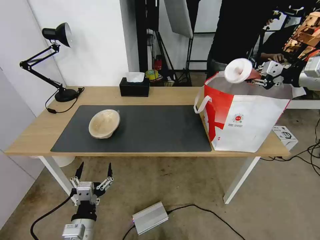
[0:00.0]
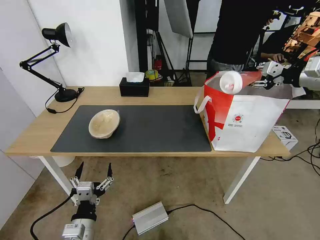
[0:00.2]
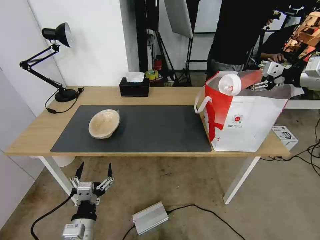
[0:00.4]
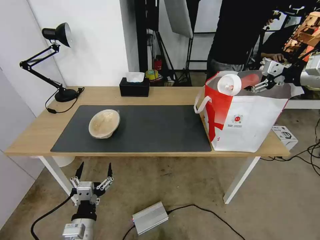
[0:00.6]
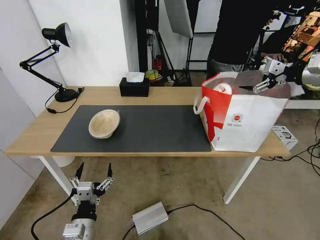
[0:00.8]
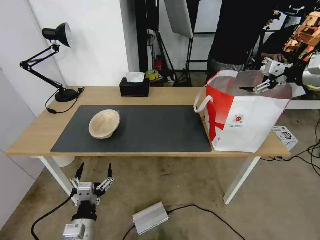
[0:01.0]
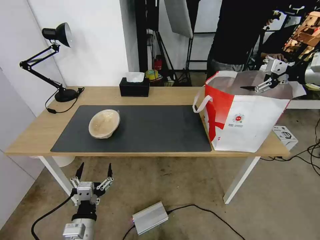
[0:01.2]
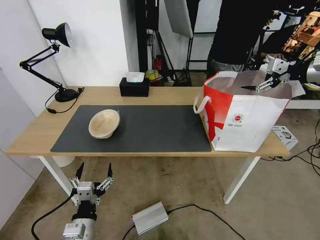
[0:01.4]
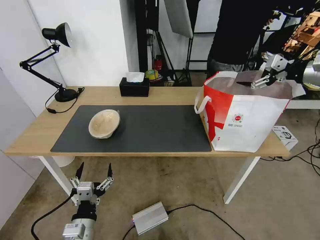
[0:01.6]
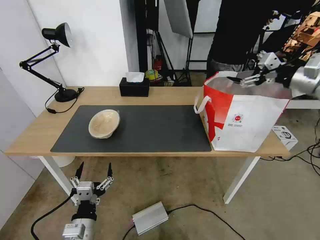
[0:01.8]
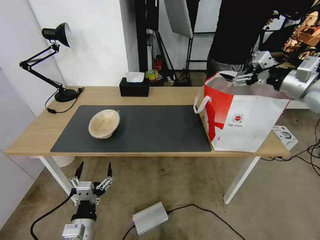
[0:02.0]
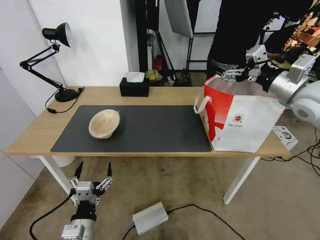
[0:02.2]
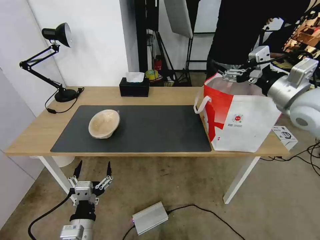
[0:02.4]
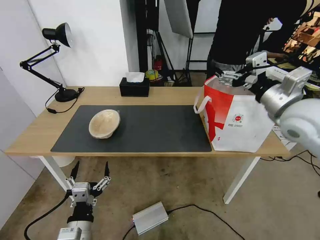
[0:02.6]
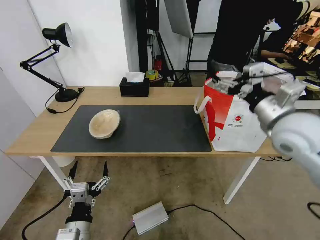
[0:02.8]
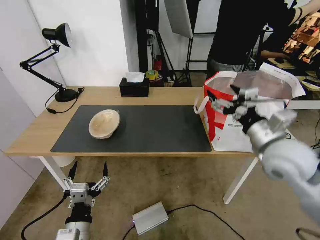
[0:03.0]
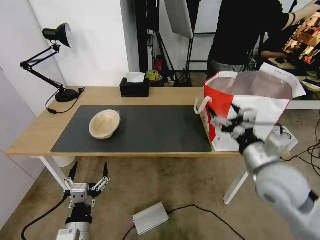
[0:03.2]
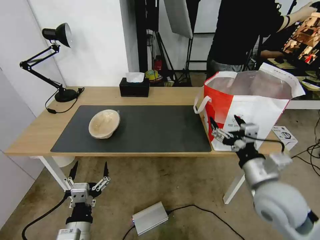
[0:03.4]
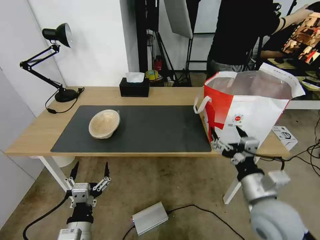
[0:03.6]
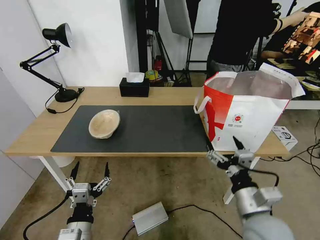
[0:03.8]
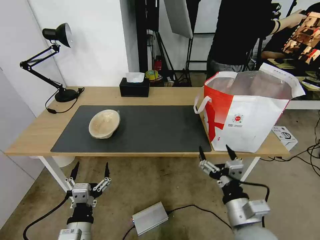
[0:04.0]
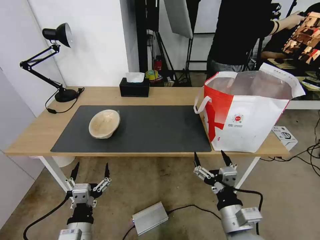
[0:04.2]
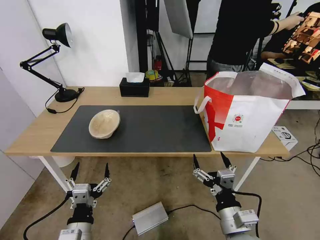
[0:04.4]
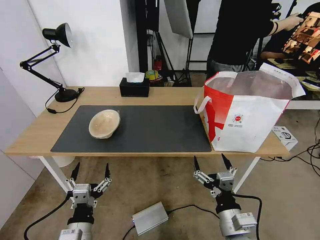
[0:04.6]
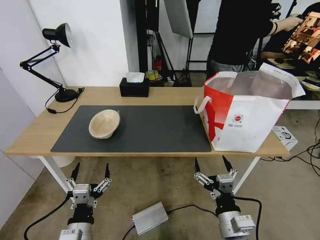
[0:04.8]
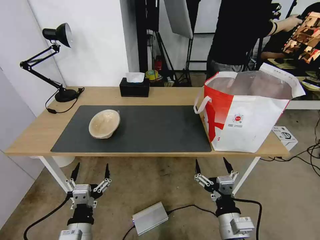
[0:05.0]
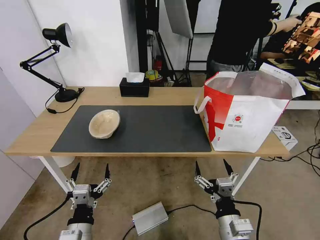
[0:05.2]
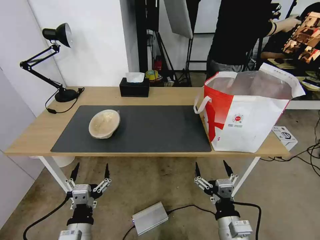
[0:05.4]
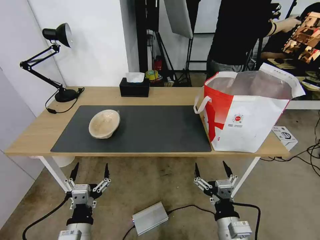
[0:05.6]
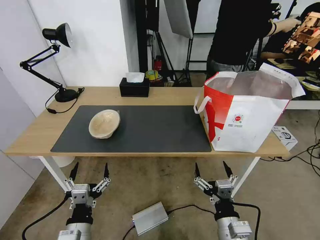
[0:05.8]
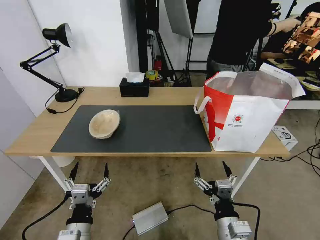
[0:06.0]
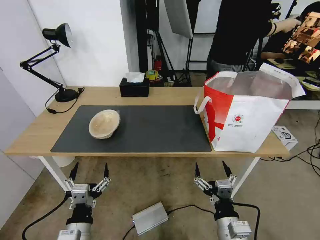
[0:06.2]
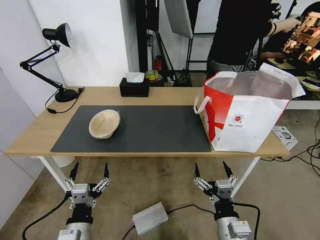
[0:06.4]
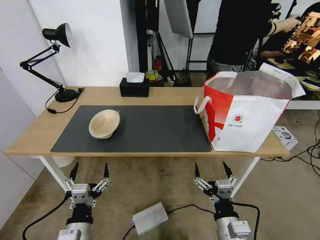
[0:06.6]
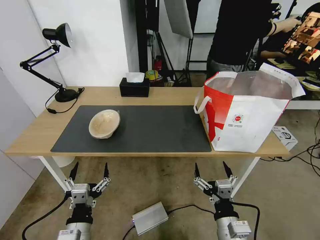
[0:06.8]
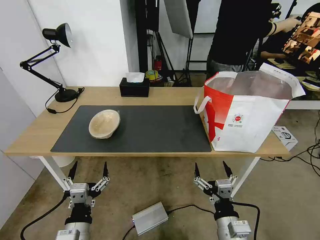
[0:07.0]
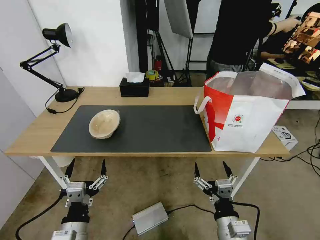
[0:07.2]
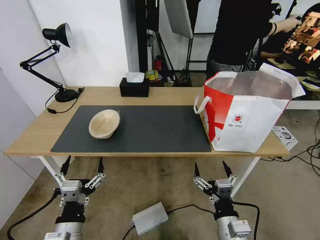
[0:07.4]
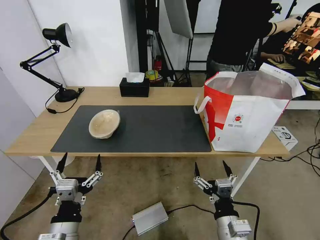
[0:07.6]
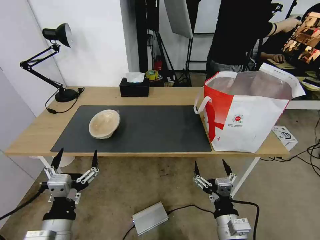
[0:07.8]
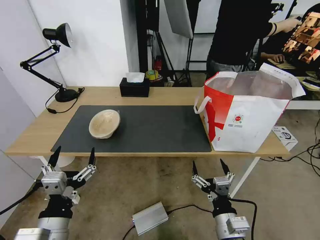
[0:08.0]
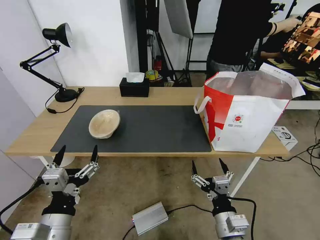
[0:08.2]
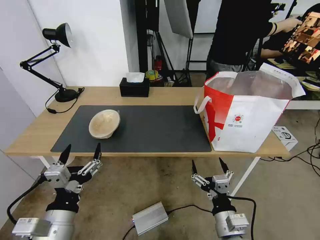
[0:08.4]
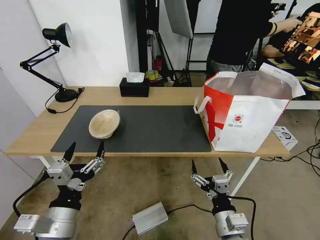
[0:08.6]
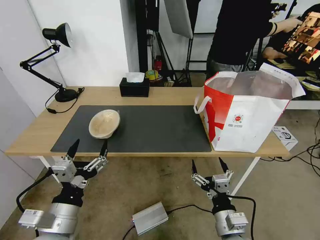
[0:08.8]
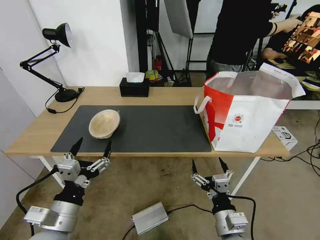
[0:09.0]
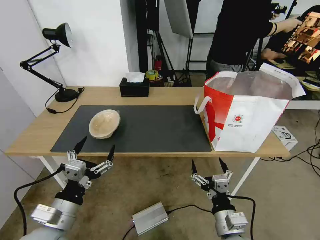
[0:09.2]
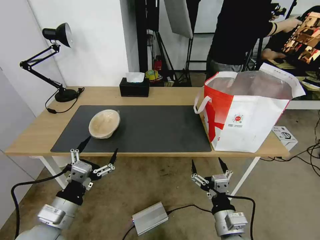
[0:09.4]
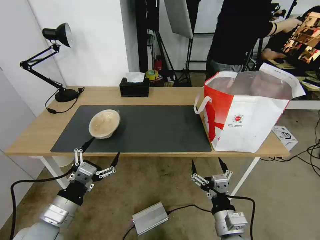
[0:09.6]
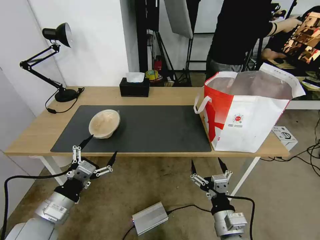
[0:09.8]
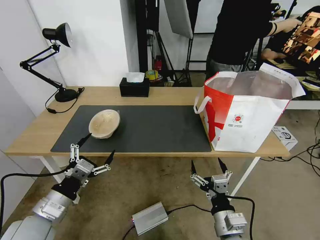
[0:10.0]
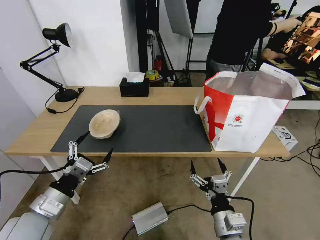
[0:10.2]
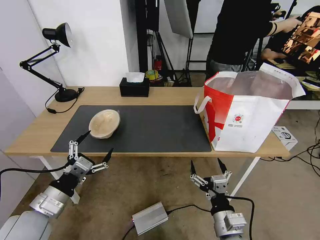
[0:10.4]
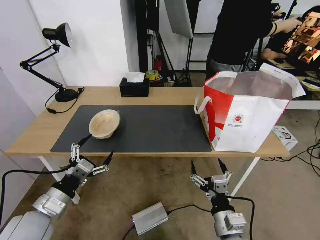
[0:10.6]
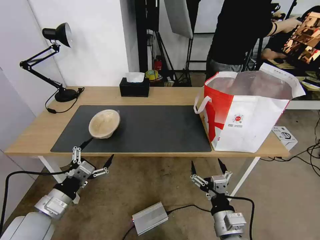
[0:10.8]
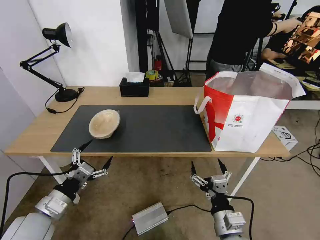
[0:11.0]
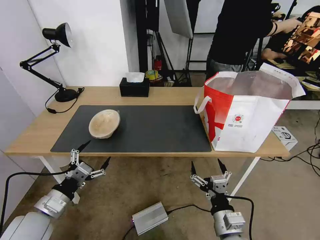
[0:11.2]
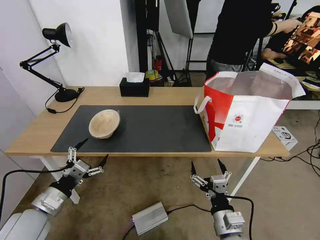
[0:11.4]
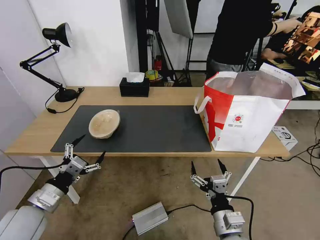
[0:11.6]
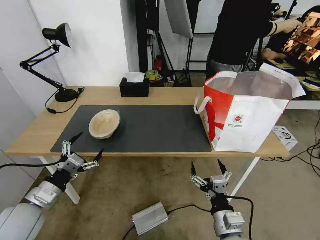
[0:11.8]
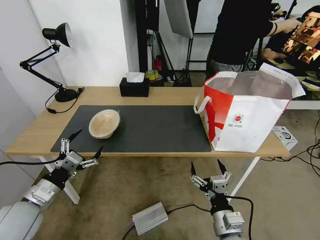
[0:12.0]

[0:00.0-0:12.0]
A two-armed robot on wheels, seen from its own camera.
Task of the whole recording: Pick up the trash from the table and place it into the takeout bag.
0:00.0 to 0:01.6: The right gripper opens up.
0:01.6 to 0:03.0: The right gripper is displaced to the left, backward and downward by about 30 cm.
0:03.0 to 0:04.4: The right gripper moves downward, backward and to the left, approximately 25 cm.
0:04.4 to 0:07.6: The grippers stay close to where they were, moving slightly.
0:07.6 to 0:09.0: The left gripper ends up roughly 5 cm from where it was.
0:09.0 to 0:10.4: The left gripper is displaced to the left by approximately 5 cm.
0:10.4 to 0:12.0: There are only small adjustments of the grippers.

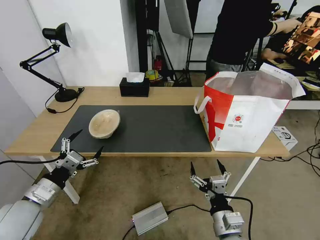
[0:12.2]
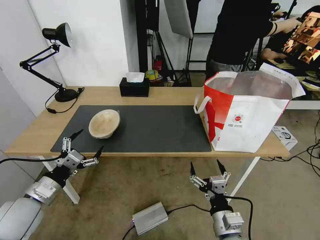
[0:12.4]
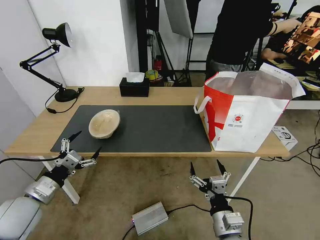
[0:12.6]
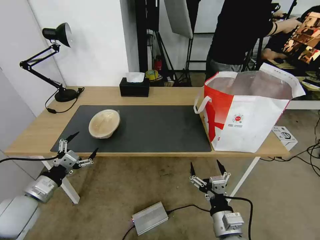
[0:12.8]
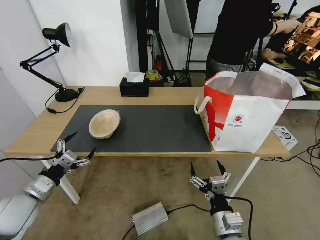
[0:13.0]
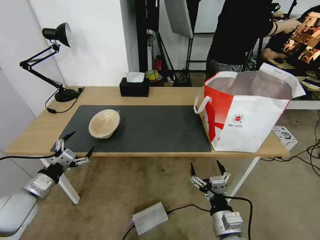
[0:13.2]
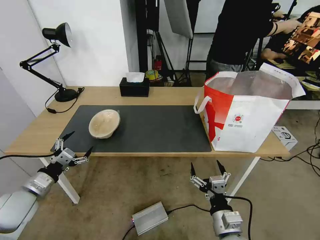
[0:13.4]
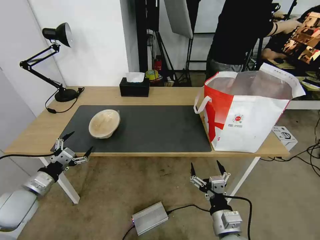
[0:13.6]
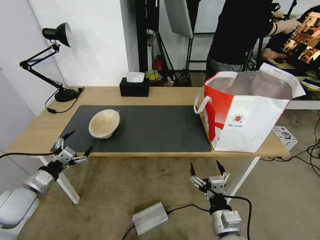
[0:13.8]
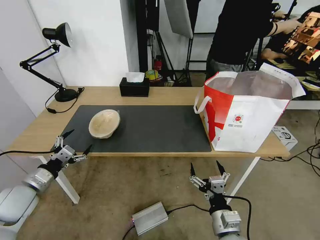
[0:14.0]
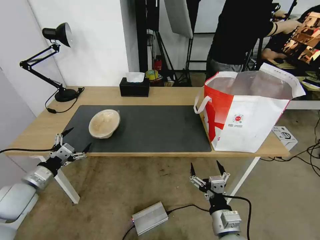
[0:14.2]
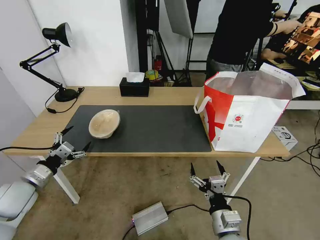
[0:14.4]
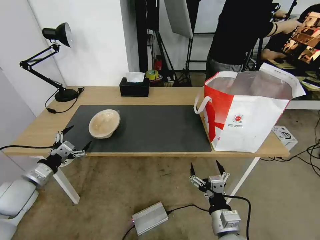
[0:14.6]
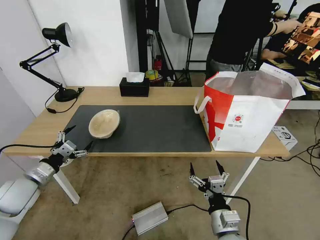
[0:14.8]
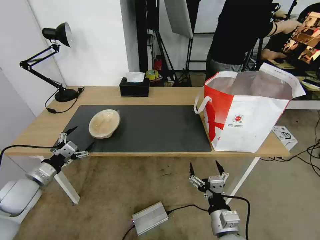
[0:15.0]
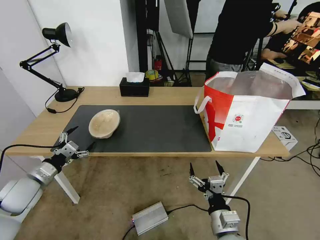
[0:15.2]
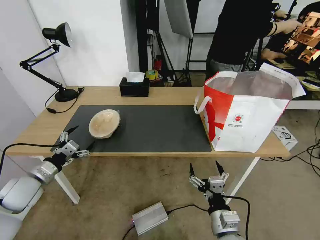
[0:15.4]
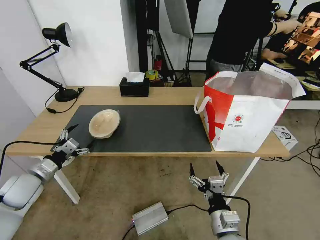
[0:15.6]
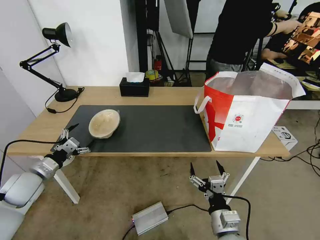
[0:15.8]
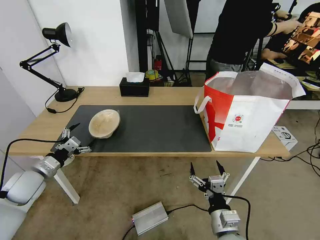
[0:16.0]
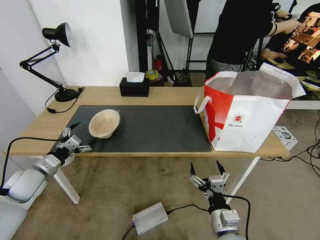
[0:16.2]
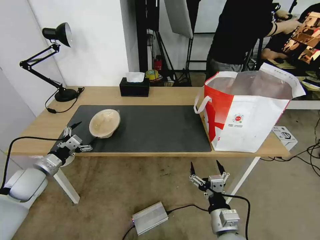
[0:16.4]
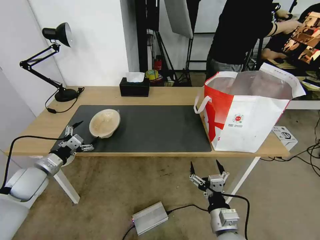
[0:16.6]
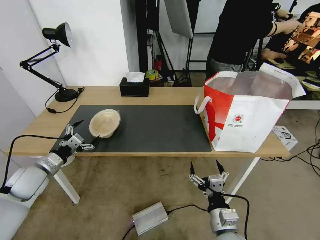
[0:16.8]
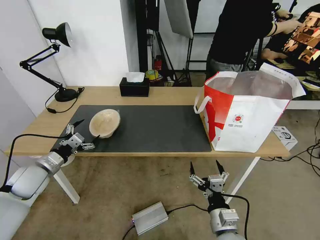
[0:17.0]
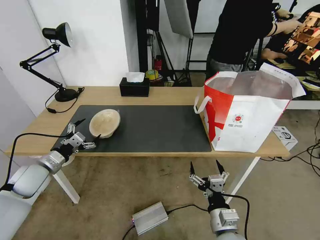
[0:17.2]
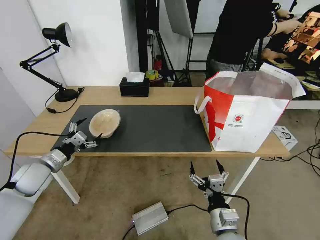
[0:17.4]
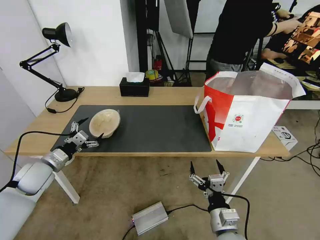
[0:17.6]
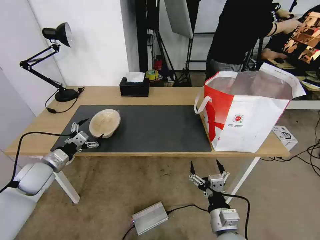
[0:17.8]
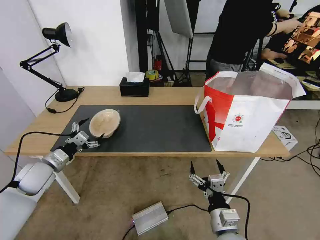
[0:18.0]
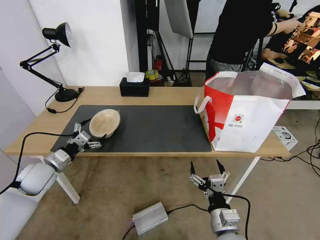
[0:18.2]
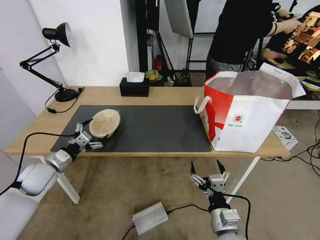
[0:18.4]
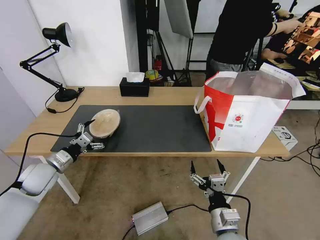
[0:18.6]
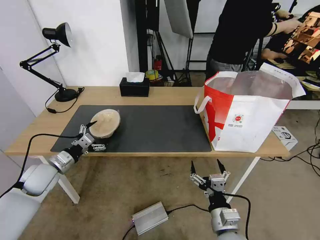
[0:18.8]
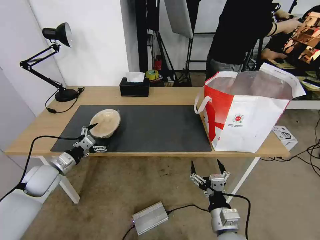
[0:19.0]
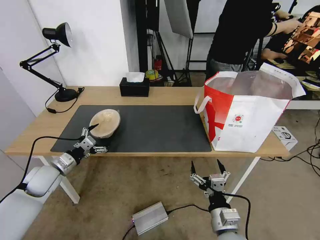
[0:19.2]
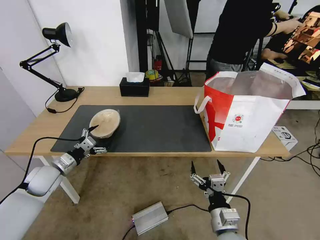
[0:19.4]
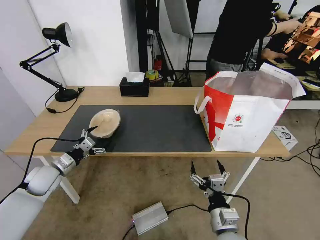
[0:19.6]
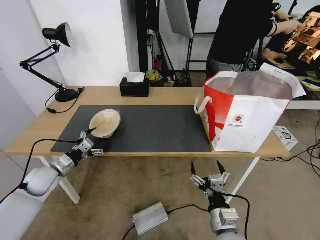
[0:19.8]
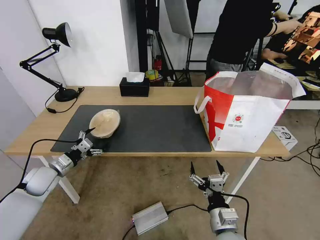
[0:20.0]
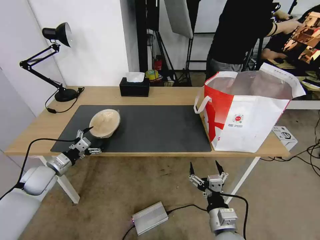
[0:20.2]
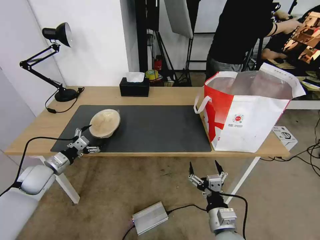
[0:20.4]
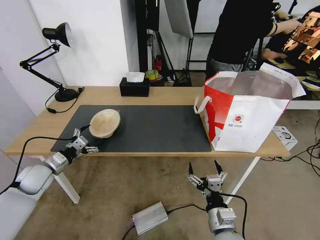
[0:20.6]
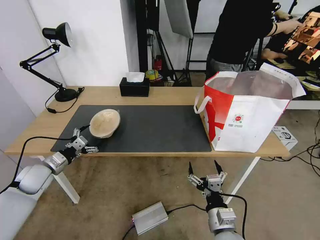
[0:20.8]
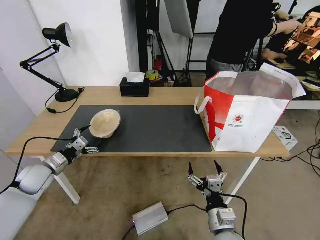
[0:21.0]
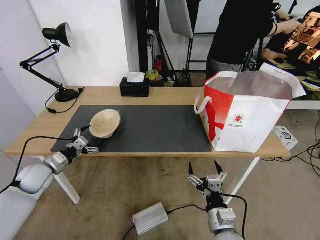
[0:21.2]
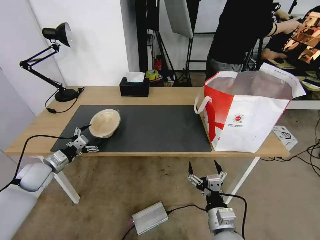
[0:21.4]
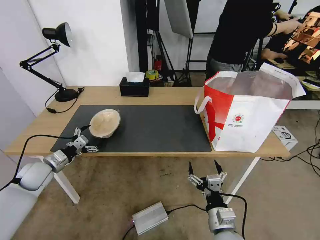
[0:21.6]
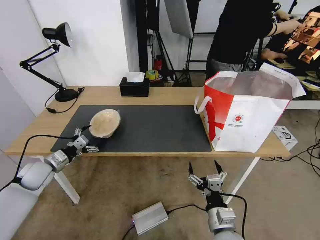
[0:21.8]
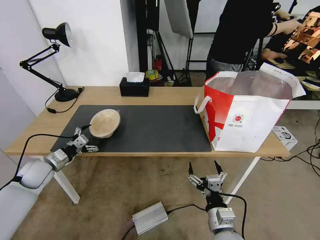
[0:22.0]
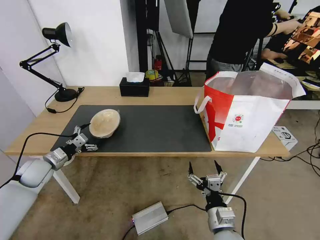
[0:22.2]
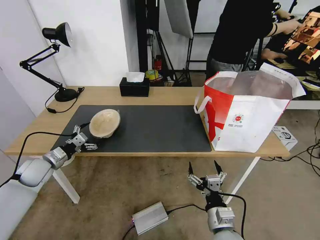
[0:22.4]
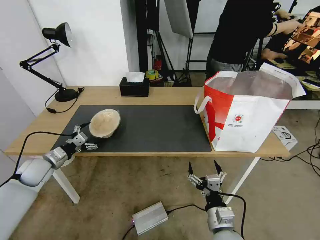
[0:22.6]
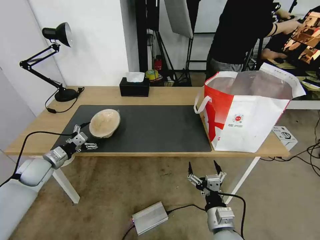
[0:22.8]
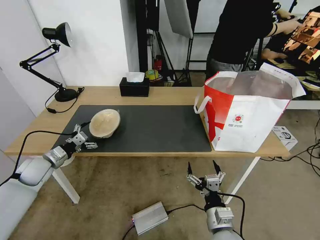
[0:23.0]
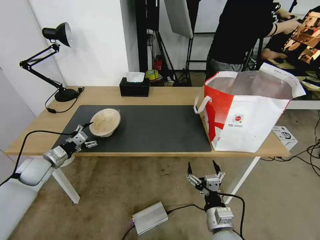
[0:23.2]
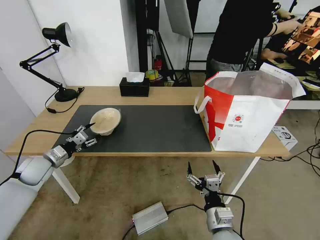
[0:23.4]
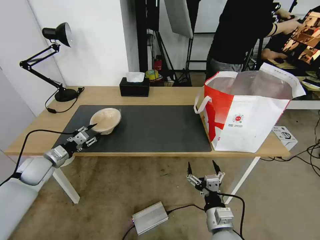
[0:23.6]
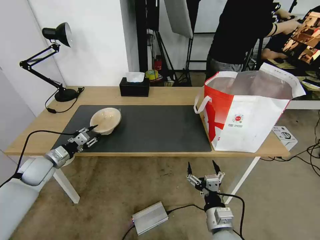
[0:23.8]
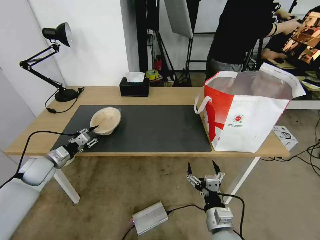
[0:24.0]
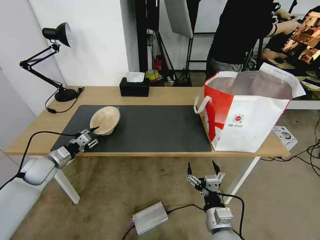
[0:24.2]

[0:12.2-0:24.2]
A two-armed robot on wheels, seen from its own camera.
Task of the whole recording: Pick up the trash from the table and place it into the takeout bag.
0:12.2 to 0:13.8: The left gripper shifts approximately 5 cm to the left.
0:13.8 to 0:15.2: The grippers move only a little.
0:15.2 to 0:18.2: There are only small adjustments of the grippers.
0:18.2 to 0:22.6: The grippers stay close to where they were, moving slightly.
0:22.6 to 0:24.2: The left gripper closes.
